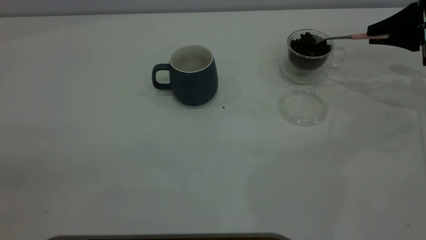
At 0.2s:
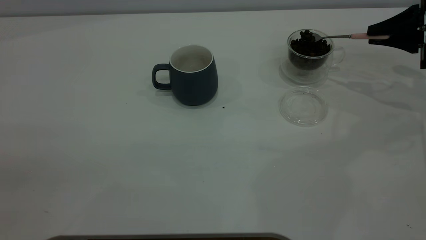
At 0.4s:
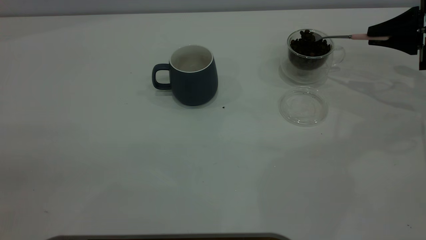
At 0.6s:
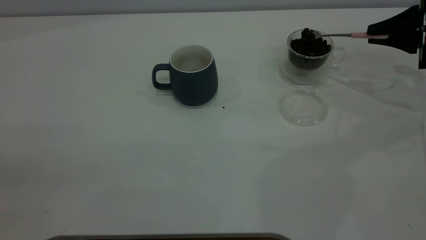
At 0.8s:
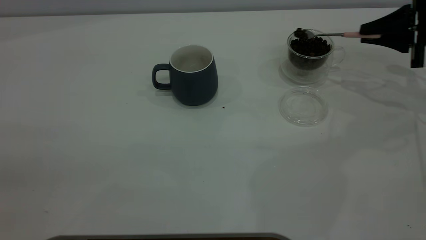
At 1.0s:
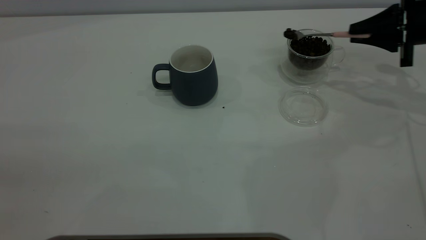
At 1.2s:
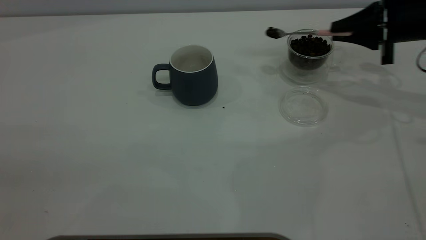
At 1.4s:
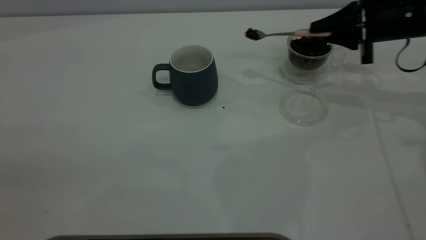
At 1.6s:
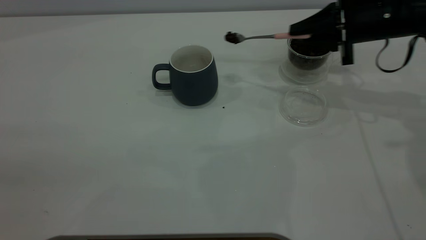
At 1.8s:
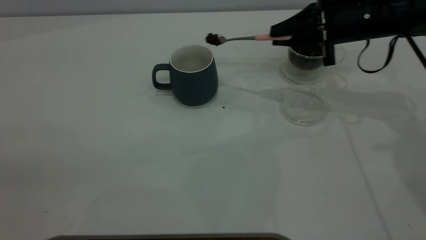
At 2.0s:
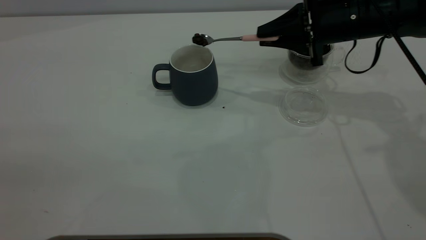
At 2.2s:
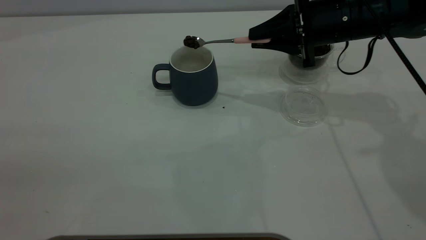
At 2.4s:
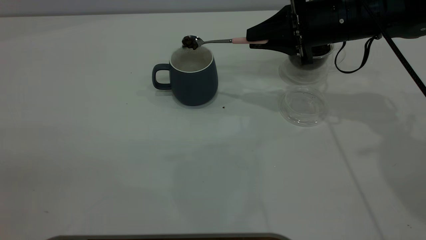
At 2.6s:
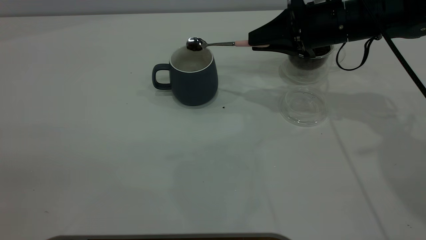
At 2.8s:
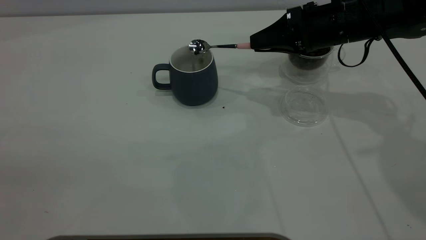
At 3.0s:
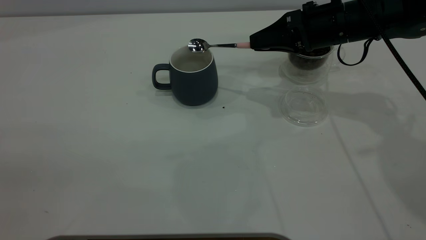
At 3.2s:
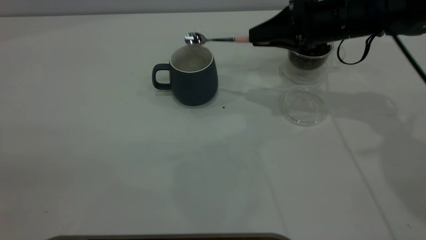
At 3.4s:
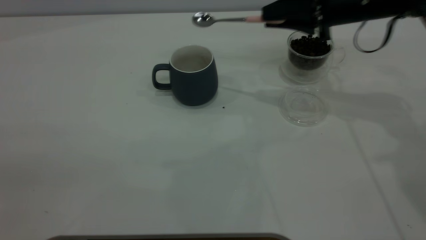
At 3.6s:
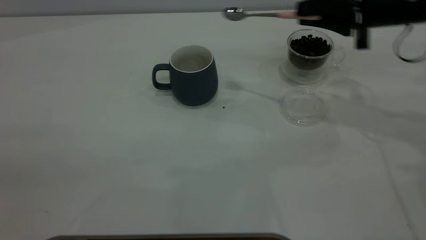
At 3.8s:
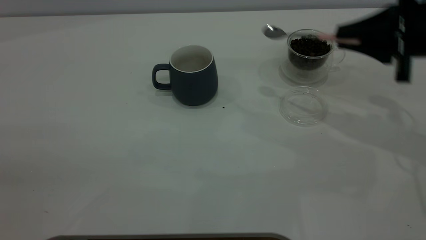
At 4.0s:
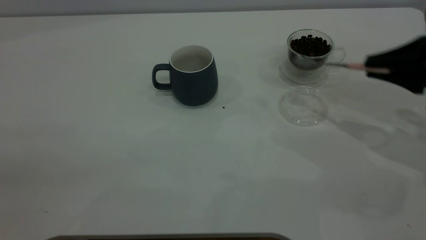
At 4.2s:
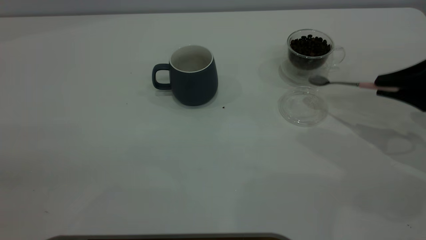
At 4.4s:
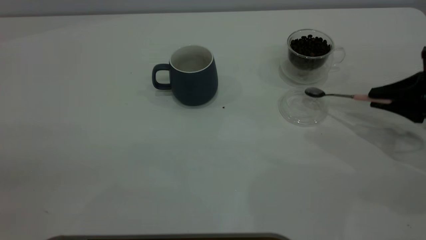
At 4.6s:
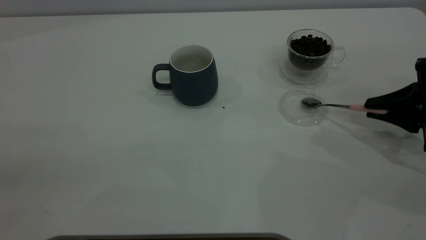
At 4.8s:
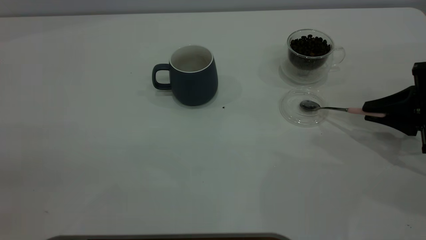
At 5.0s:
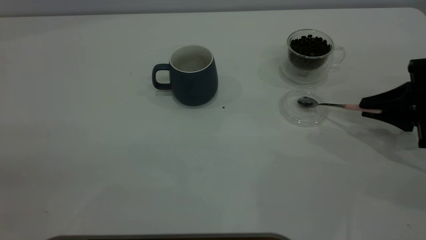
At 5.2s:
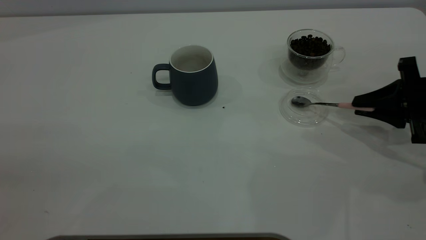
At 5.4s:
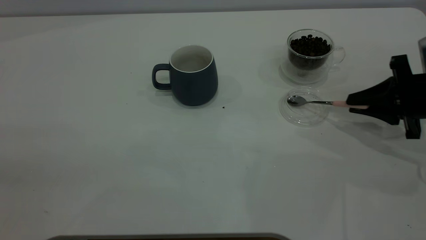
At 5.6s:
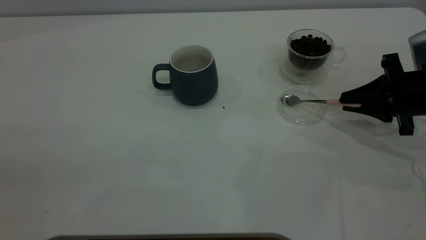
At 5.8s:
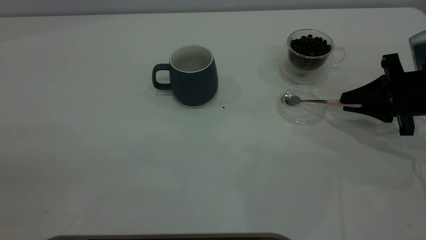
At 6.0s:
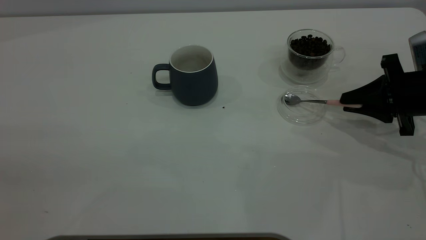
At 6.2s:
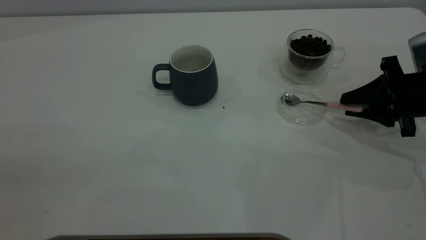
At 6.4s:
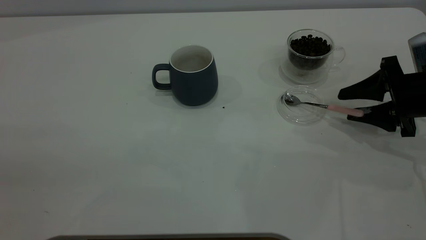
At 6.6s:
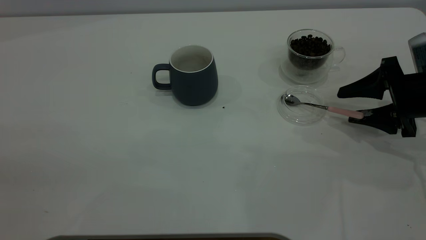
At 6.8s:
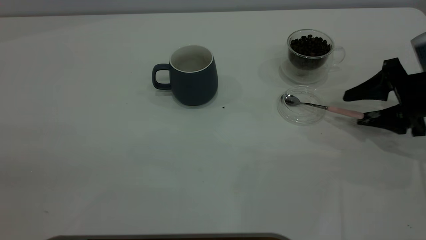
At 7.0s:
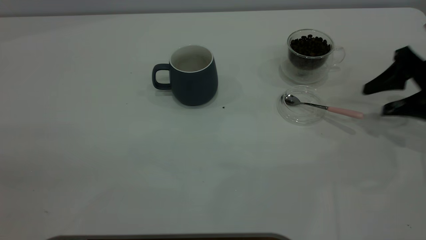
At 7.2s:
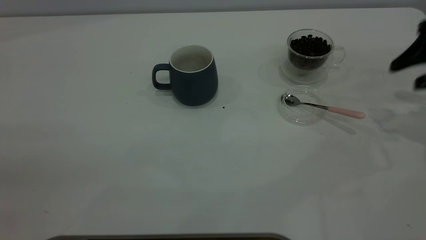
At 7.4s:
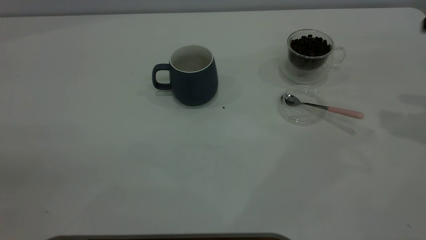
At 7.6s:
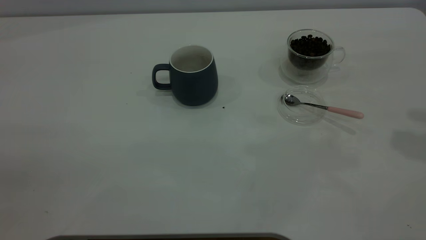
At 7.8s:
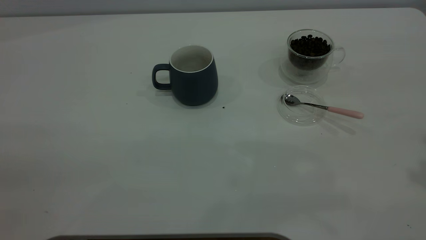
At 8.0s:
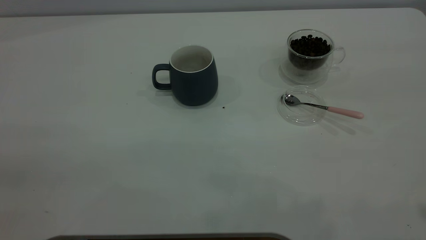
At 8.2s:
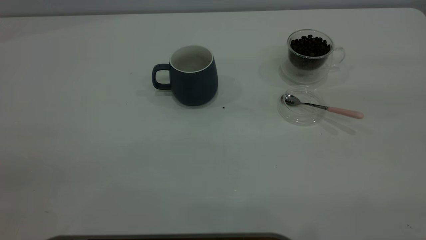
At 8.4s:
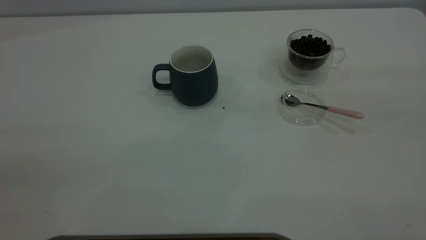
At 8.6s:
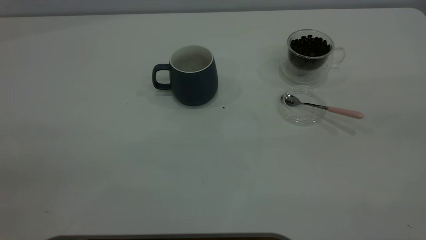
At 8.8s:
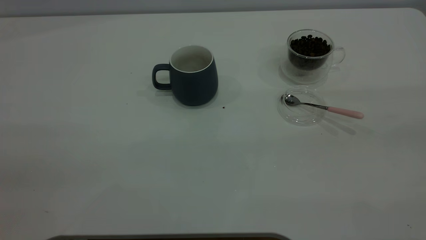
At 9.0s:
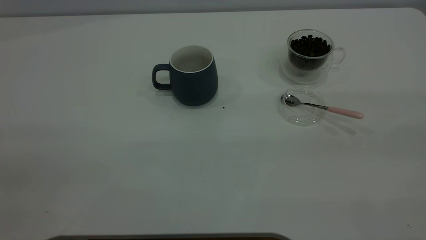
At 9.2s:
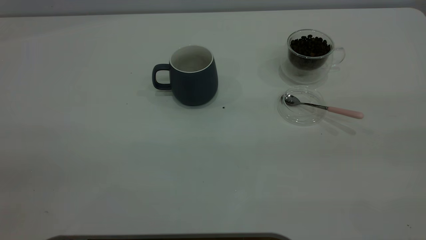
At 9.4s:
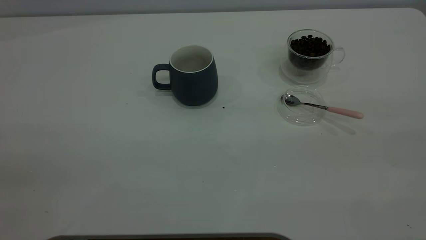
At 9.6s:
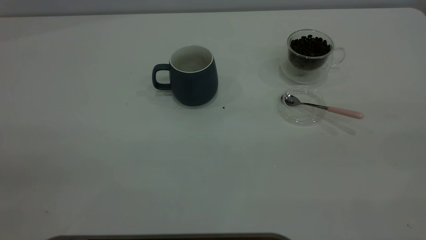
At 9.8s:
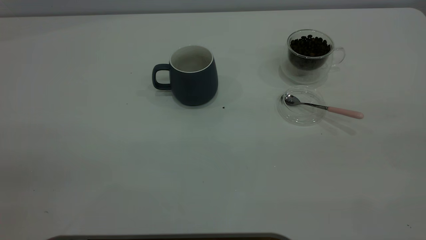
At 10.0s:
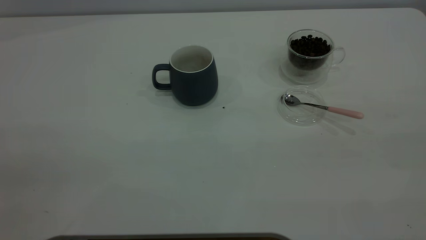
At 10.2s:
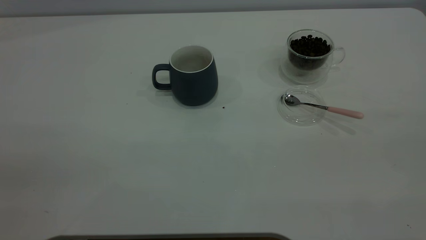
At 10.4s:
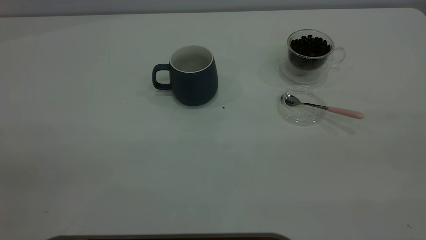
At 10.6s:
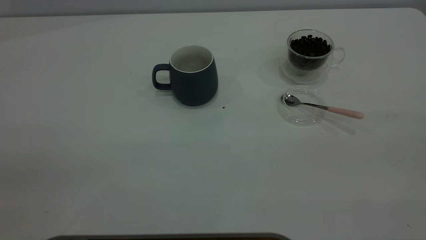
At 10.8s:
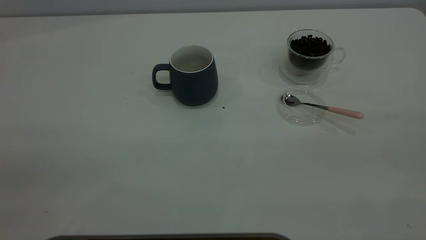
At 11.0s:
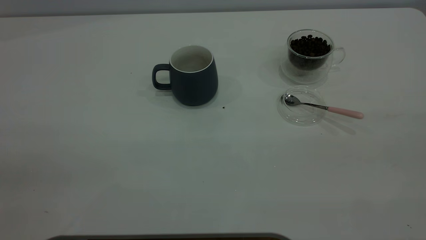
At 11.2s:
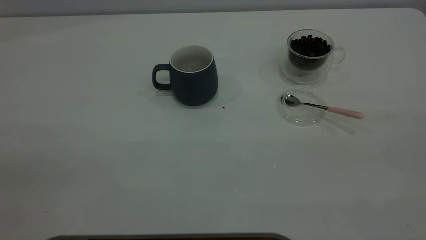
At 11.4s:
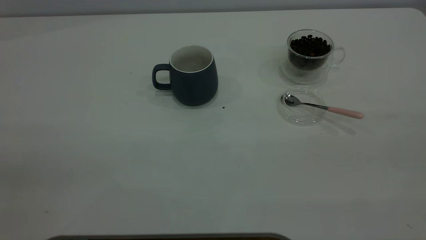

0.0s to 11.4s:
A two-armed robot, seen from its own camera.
Task of the whole recording: the left gripper place the grey cup in the center of the table, the right gripper take the pink spoon from the cup lid and scoop out the coffee beans from the coffee cup and put them into the grey cup, the right gripper put the spoon back into the cup lid.
Step, 0.0s to 3.2s: Scoop a spoonful of beans into the cup.
Step, 3.4s to 6.8s: Place the spoon back in its original place.
0.0s to 1.4s: The right gripper goes about 10 cm to the left.
1.4s to 2.8s: The right gripper heads to the left, covering some 10 cm.
2.8s to 4.2s: The right gripper goes roughly 20 cm to the right and backward.
4.2s to 5.6s: The right gripper ends up roughly 5 cm from where it was.
5.6s to 7.2s: The right gripper heads upward, covering some 10 cm, and opens its fingers.
7.2s to 8.6s: The right gripper is displaced backward and upward by about 35 cm.
